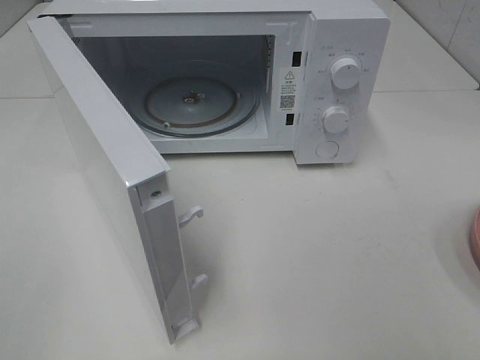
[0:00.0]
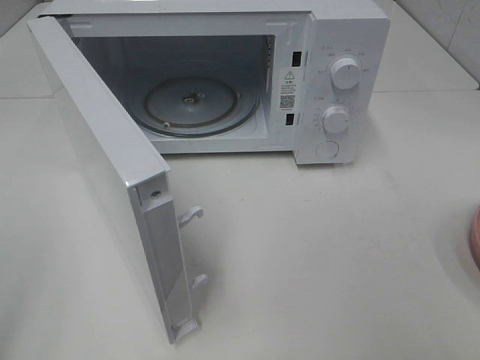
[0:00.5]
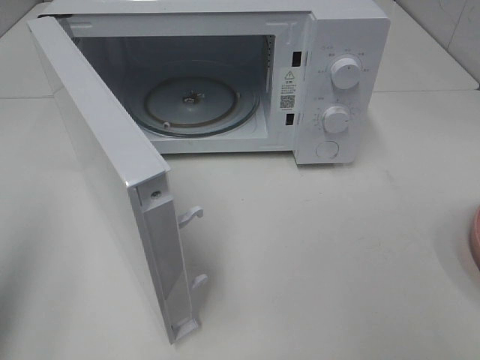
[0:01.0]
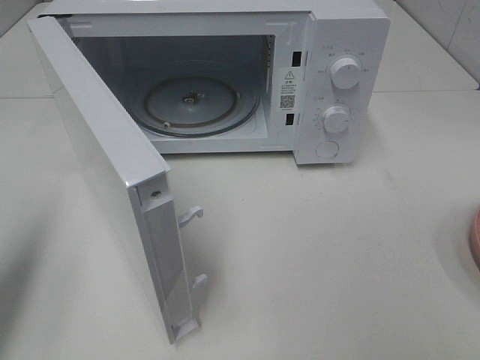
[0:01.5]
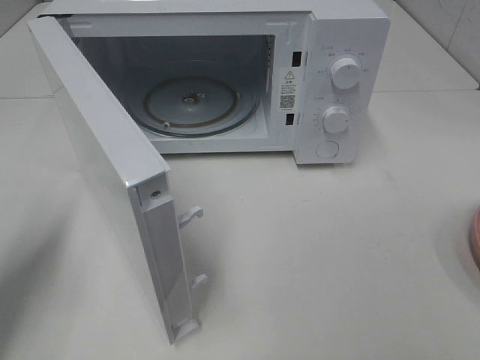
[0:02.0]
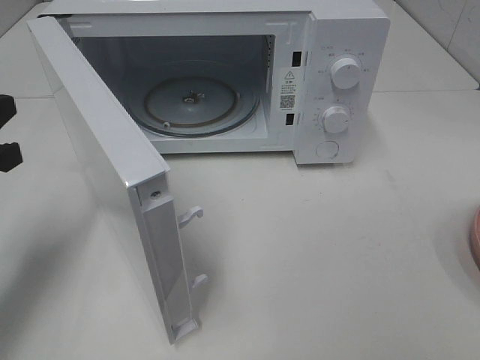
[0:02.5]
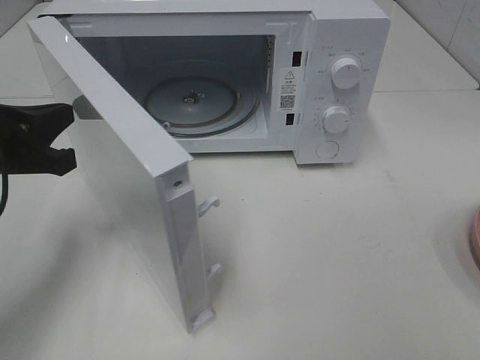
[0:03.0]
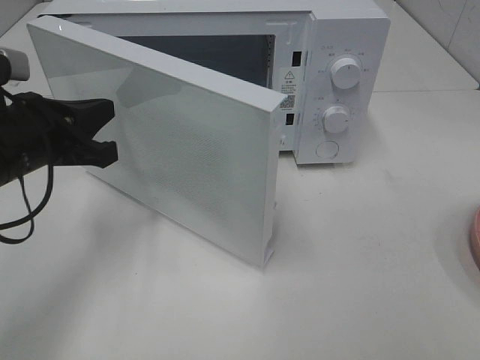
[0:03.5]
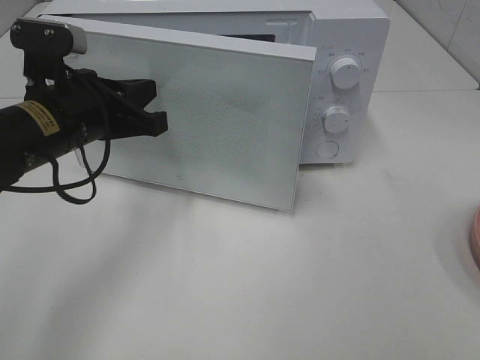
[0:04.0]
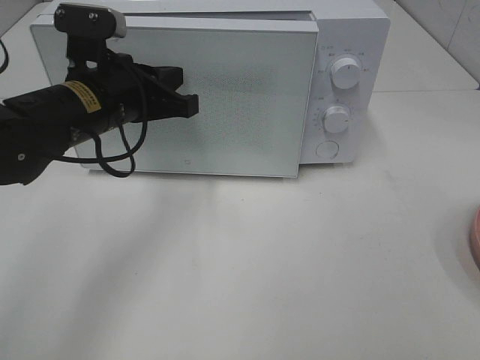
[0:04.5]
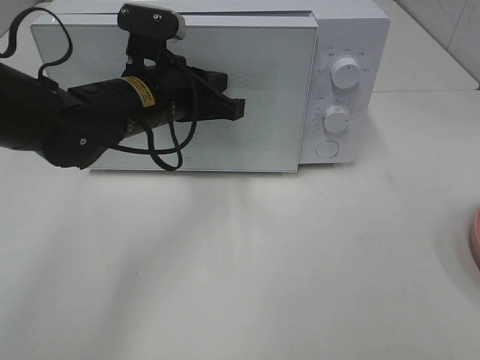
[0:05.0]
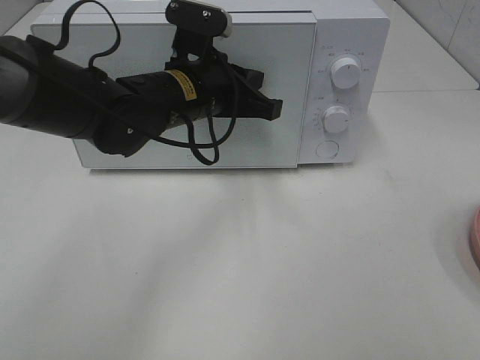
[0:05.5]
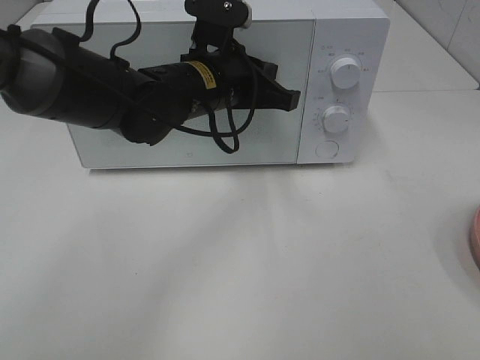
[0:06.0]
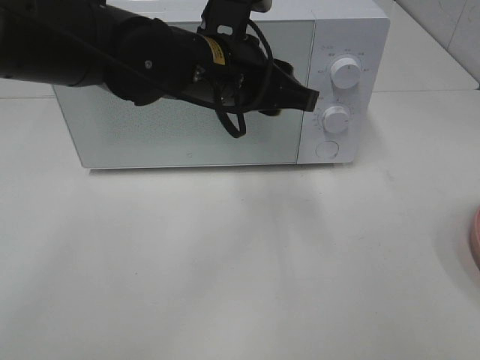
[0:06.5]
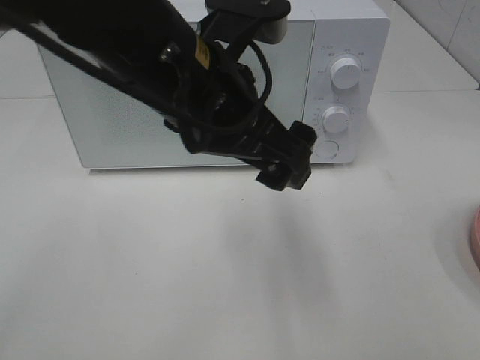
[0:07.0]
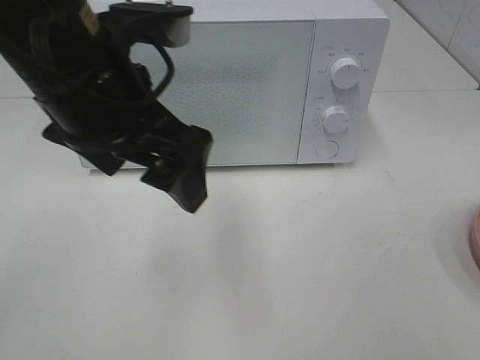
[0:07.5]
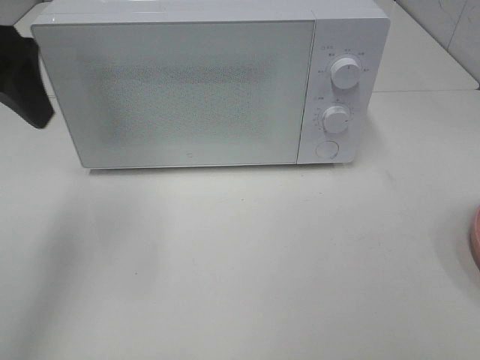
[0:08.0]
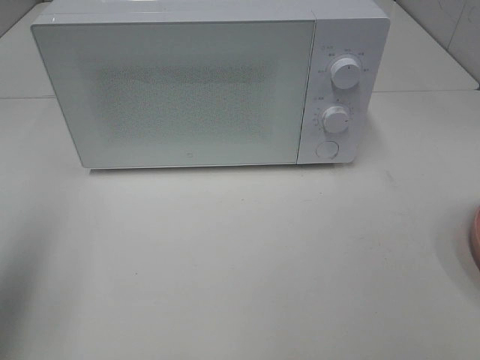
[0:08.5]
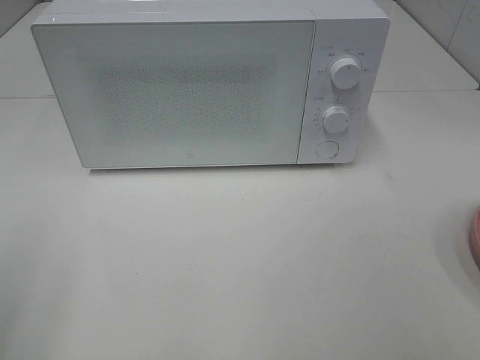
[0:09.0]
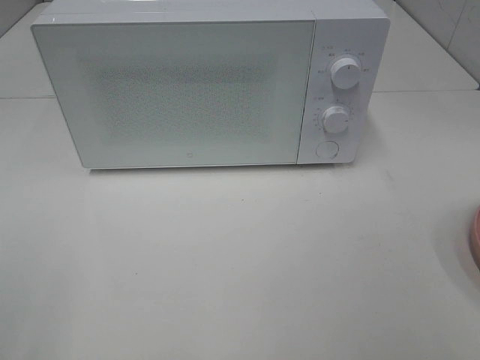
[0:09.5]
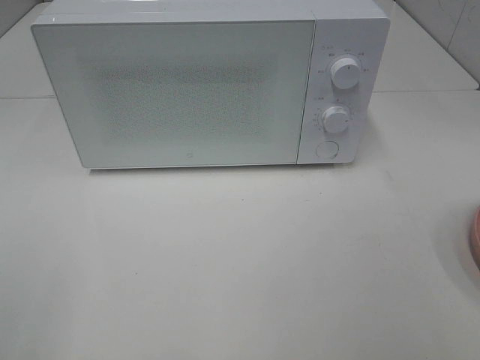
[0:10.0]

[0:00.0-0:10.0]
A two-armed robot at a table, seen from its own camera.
Task of the whole recording: Heat the burger.
Step, 0.0 to 6.0 s: Left hand: close the microwave door.
0.0 to 2.0 s: The left gripper travels forward by roughly 20 cm, and closes its fingers.
2.0 to 4.0 s: The left gripper shifts some 15 cm to the right and forward.
4.0 to 6.0 s: The left gripper travels to the right and forward by some 15 cm.
6.0 to 8.0 s: The left gripper travels to the left, upward and backward by roughly 30 cm, and opens up.
8.0 to 10.0 s: The left gripper shifts approximately 25 cm backward.

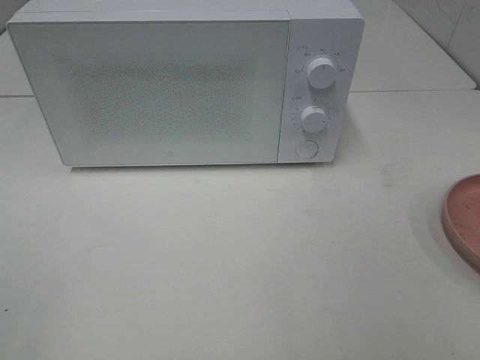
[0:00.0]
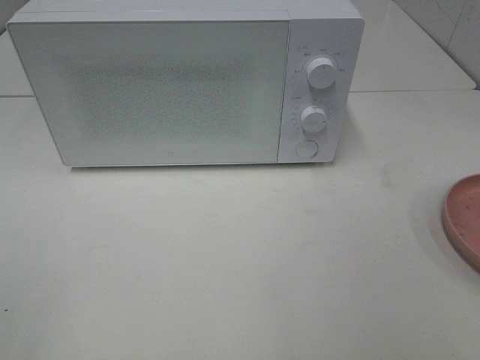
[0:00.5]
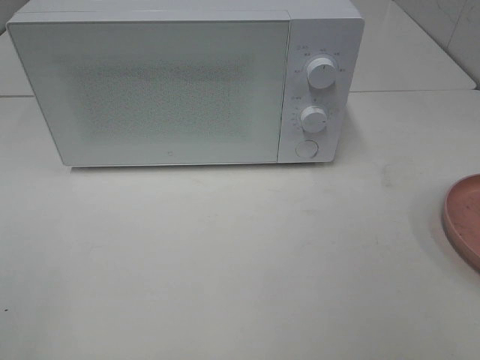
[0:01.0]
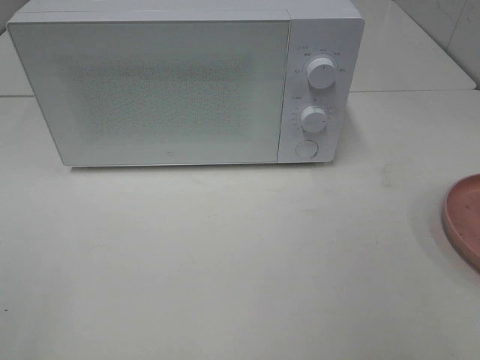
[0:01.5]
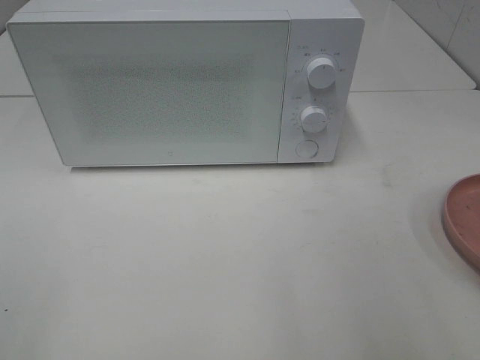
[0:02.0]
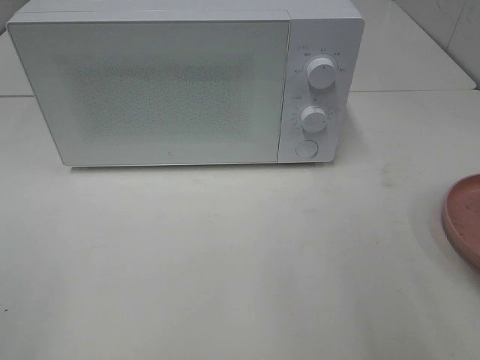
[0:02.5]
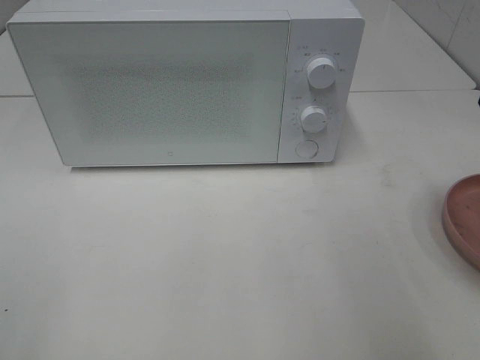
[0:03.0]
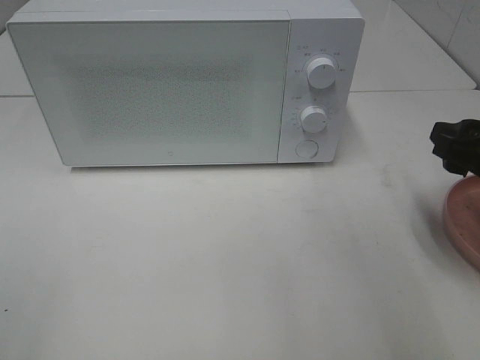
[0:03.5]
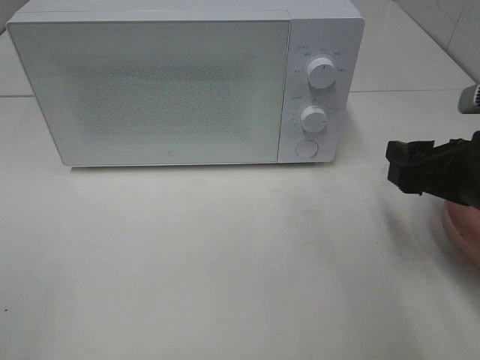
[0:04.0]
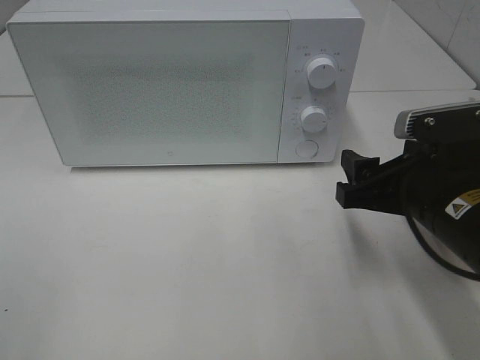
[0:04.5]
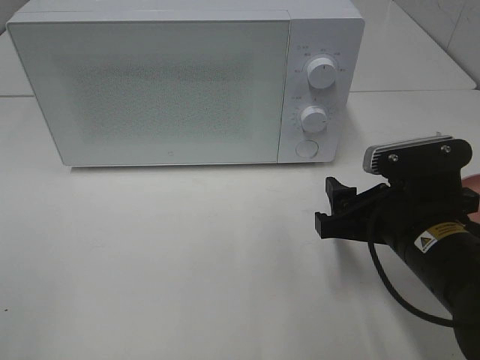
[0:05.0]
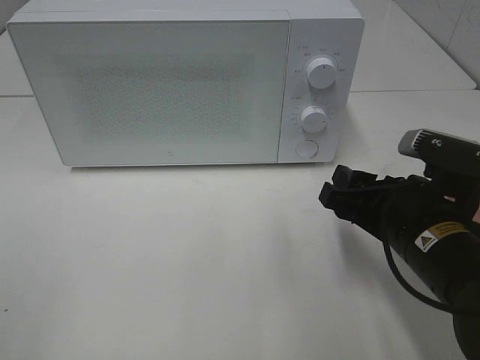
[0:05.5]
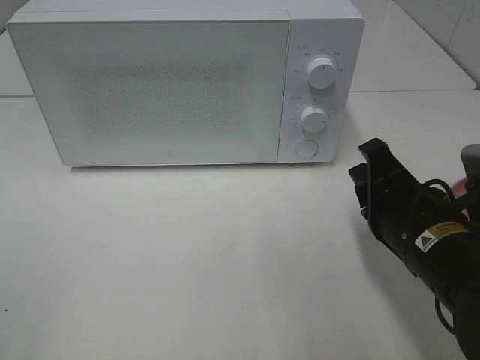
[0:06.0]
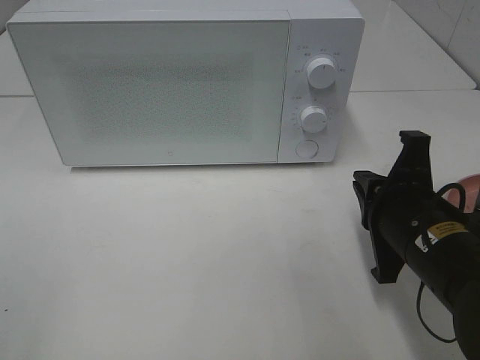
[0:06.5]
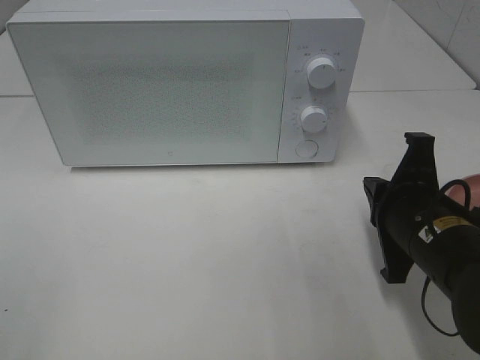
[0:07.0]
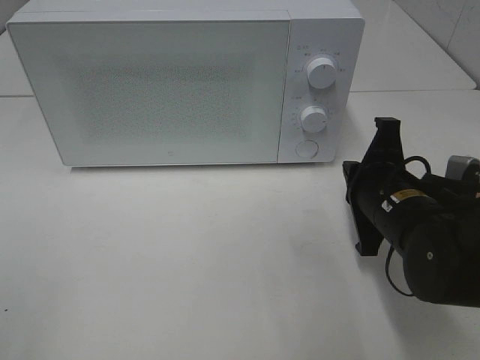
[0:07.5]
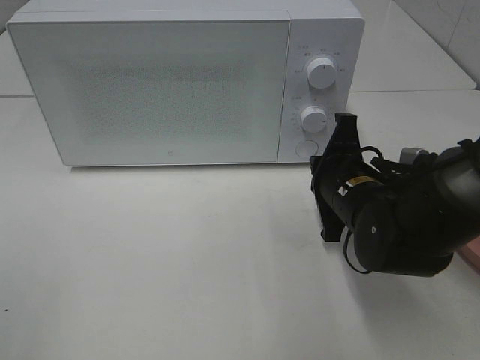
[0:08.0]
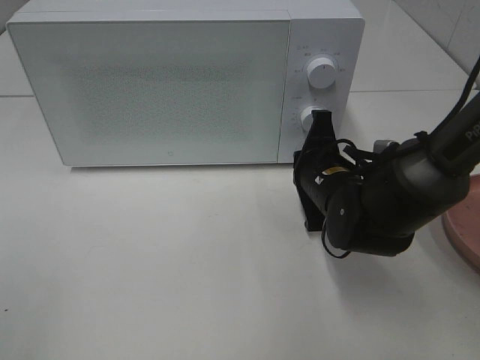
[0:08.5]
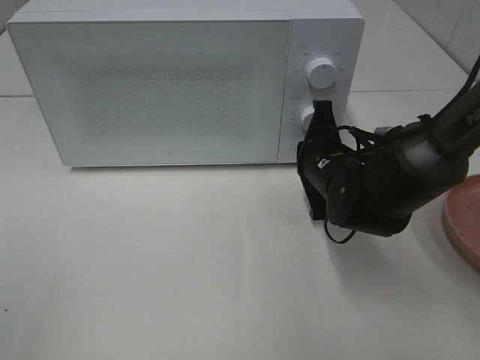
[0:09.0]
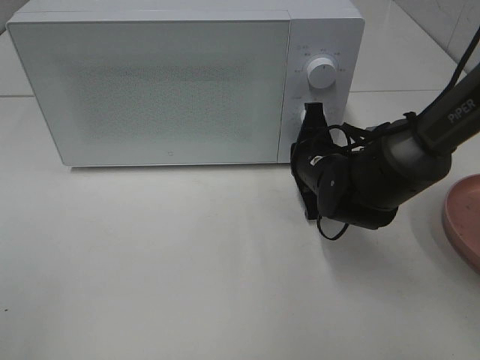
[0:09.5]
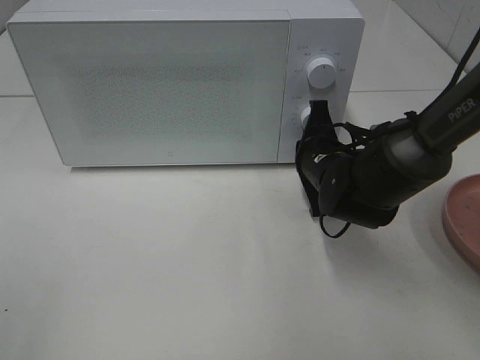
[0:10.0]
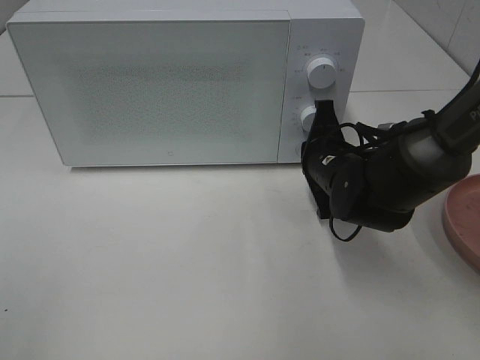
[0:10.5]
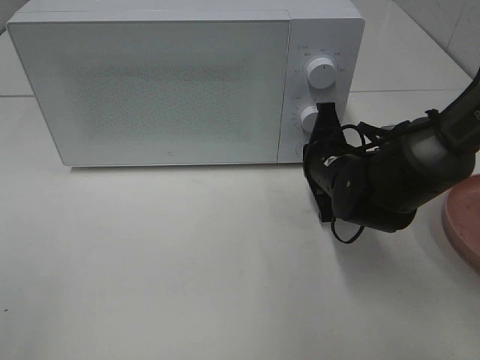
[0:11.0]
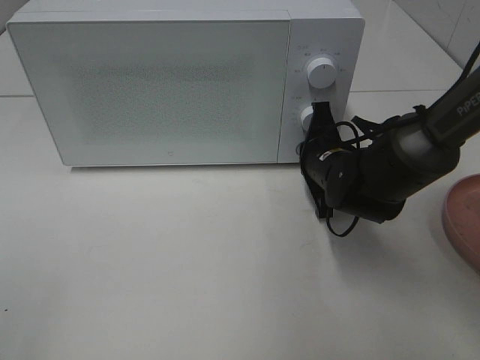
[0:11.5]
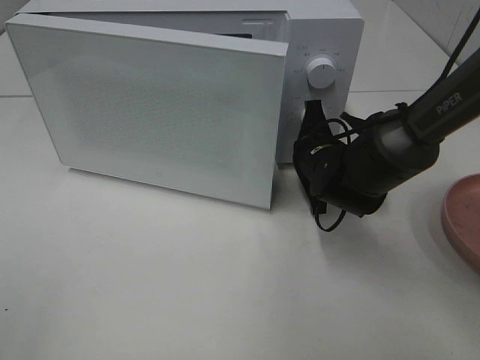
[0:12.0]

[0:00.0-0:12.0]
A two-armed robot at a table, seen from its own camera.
Task of the whole recording: Heat the burger.
2.0 to 4.0 s: The right gripper is displaced forward and downward by roughly 15 cm.
4.0 to 6.0 s: The right gripper moves to the left, roughly 5 cm, and closes its fingers.
6.0 to 8.0 s: The right gripper goes some 10 cm forward, and closes up.
8.0 to 10.0 s: The right gripper heads forward, covering about 5 cm.
10.0 to 12.0 s: The grippers make only small movements.

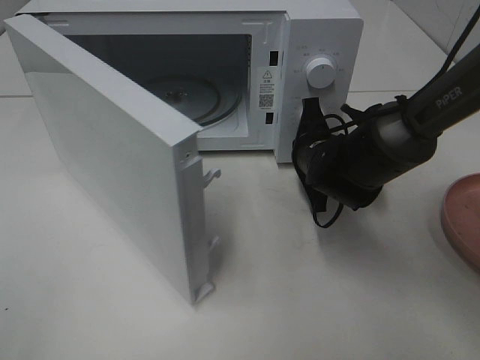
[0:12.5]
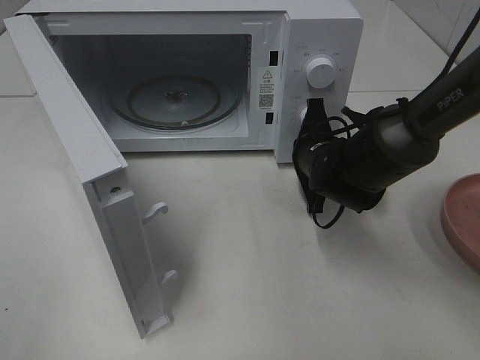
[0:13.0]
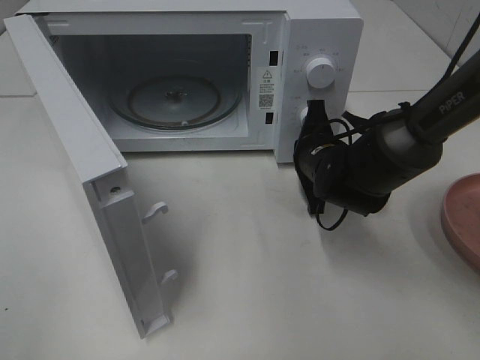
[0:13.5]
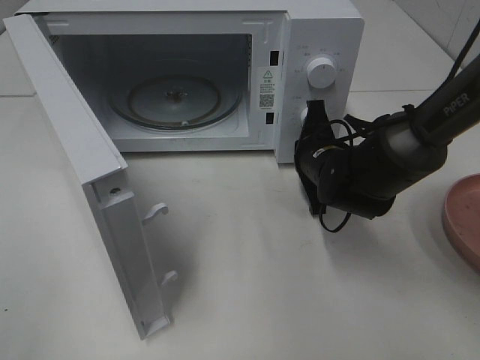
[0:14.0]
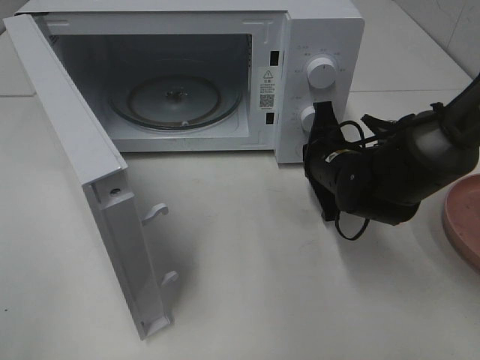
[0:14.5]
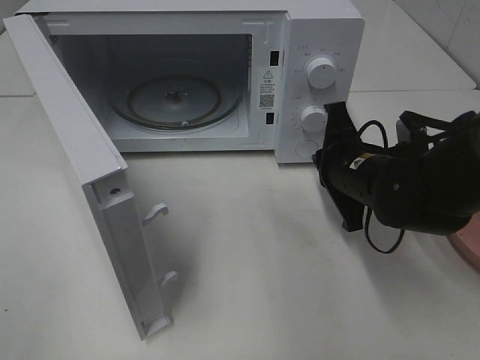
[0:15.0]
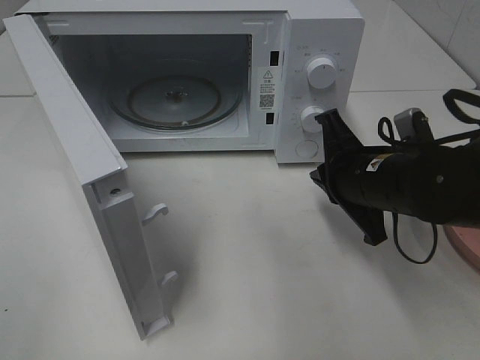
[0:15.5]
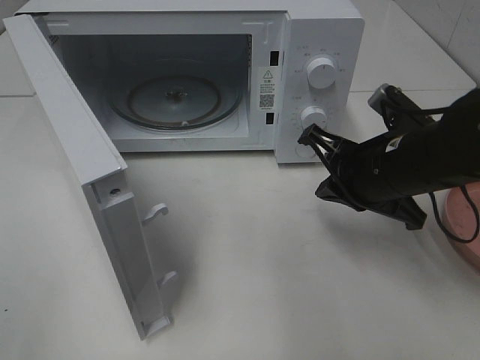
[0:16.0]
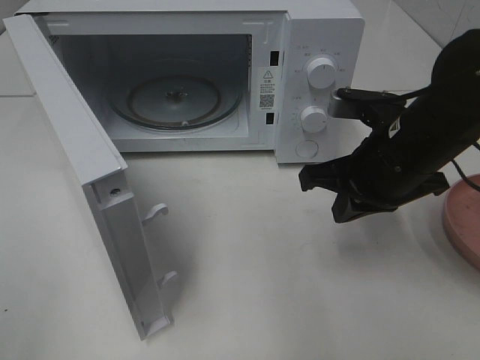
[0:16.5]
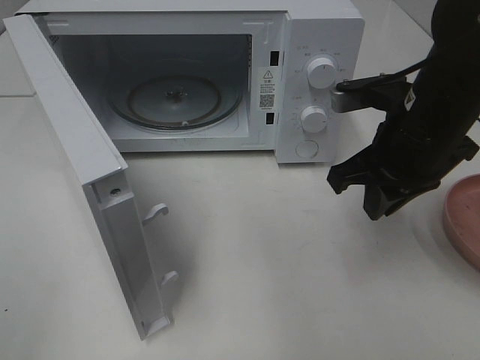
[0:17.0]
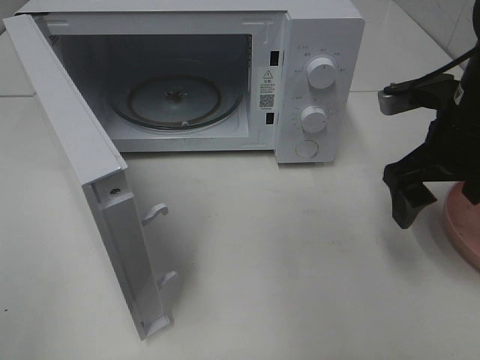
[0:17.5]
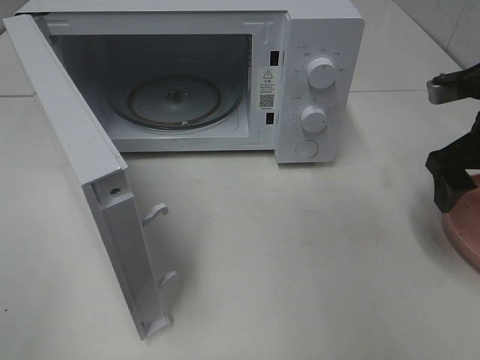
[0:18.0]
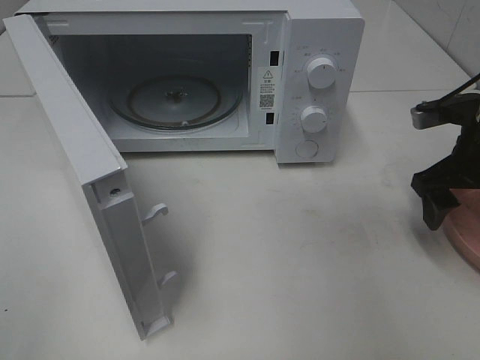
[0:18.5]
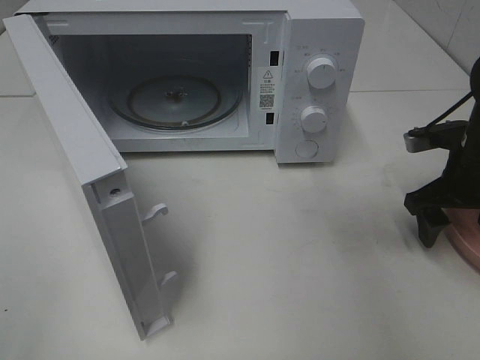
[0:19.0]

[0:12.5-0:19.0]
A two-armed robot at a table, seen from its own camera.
Task of the whole recording: Heat the burger.
Step, 12.5 to 14.5 s: Right hand: press the switch.
14.5 to 17.0 s: The right gripper is displaced upward and backward by roughly 15 cm.
17.0 to 19.0 s: The right gripper heads to the right and downward, covering roughly 15 cm, and opens.
